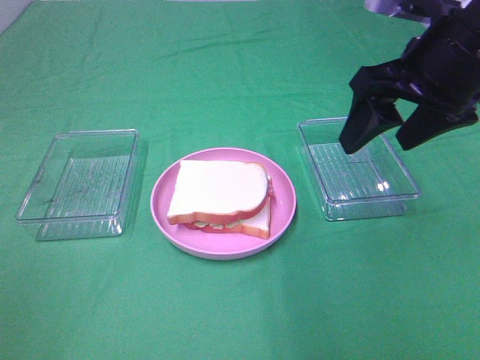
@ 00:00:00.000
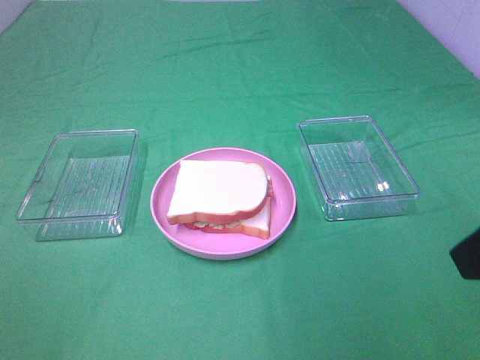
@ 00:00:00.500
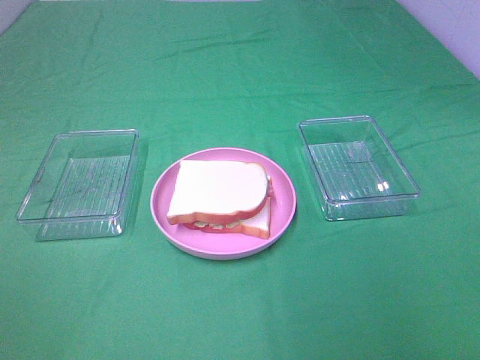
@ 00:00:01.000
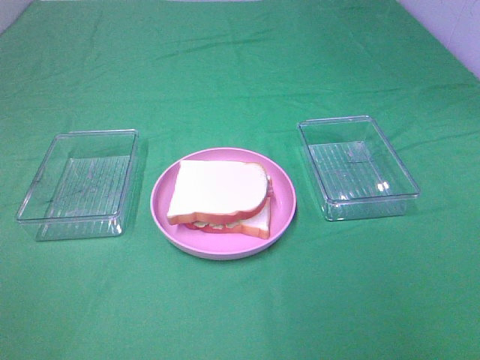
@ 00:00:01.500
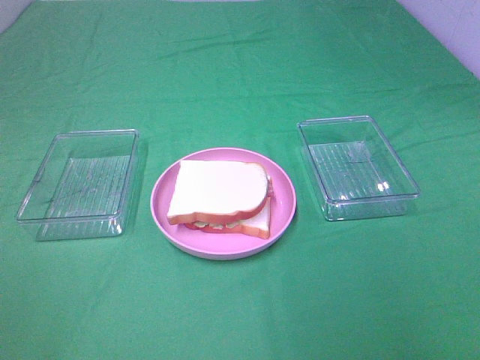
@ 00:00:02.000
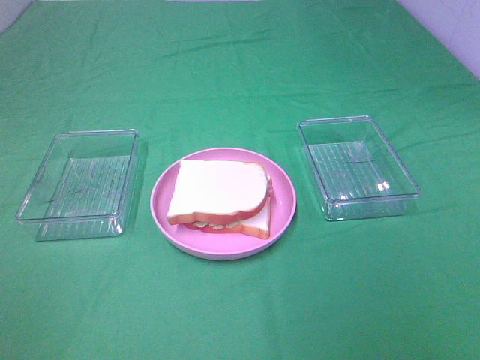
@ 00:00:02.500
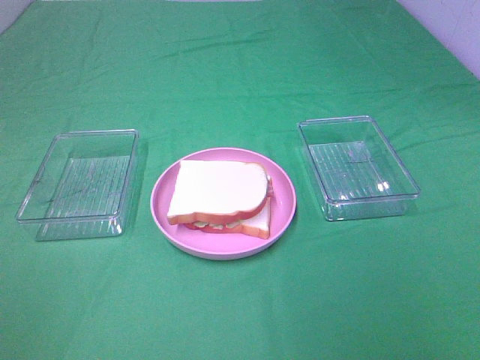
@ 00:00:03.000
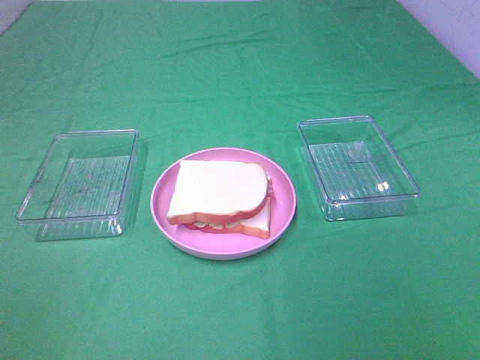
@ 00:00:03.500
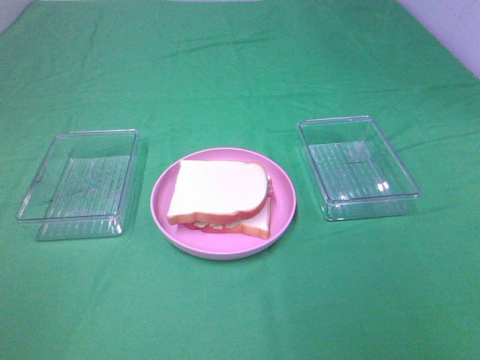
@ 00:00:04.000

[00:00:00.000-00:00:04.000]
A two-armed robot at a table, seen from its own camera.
Task of the whole recording: Make sandwiches.
00:00:00.000 to 00:00:02.000: The right gripper shifts approximately 25 cm backward.
